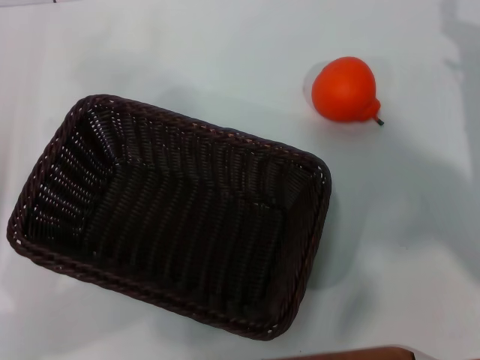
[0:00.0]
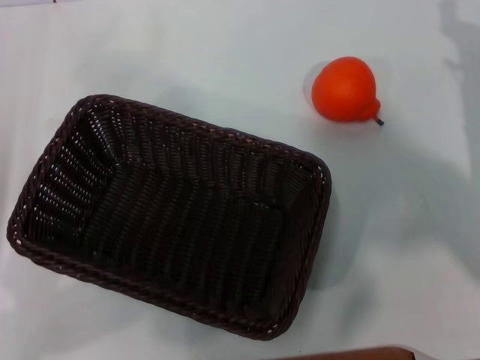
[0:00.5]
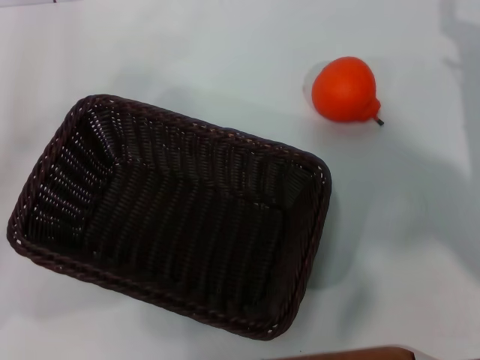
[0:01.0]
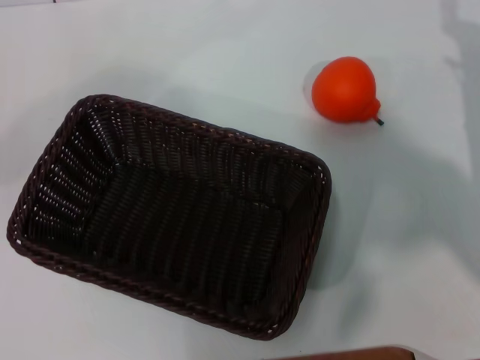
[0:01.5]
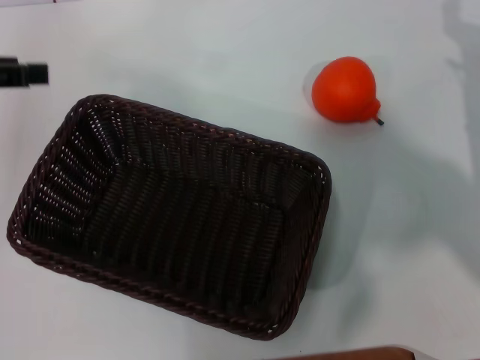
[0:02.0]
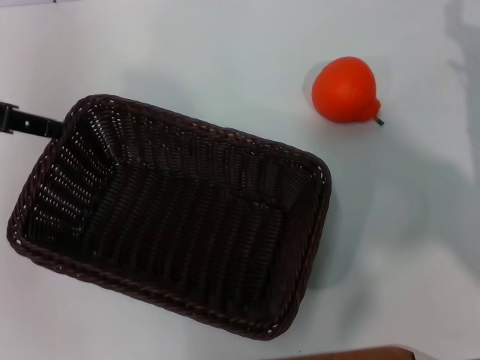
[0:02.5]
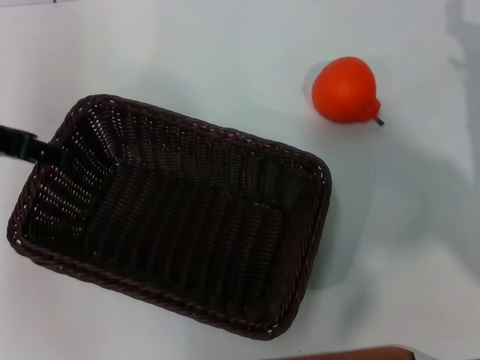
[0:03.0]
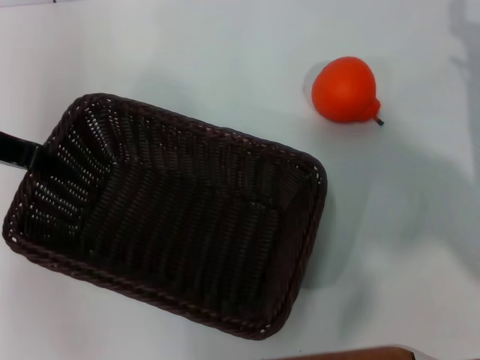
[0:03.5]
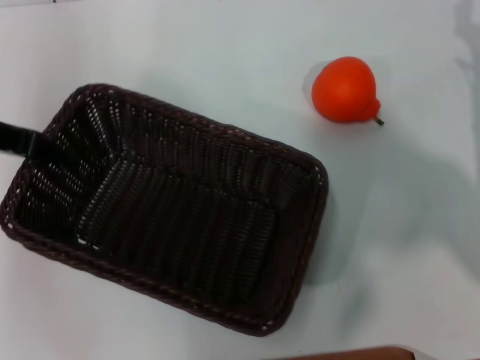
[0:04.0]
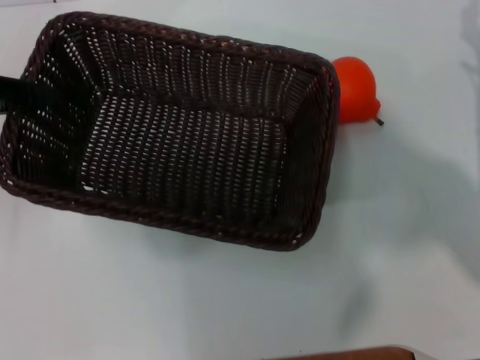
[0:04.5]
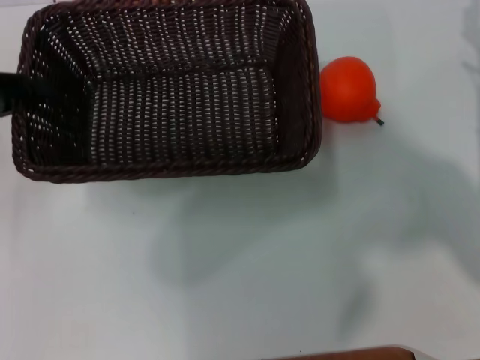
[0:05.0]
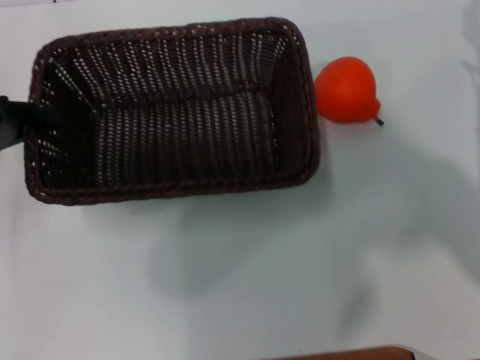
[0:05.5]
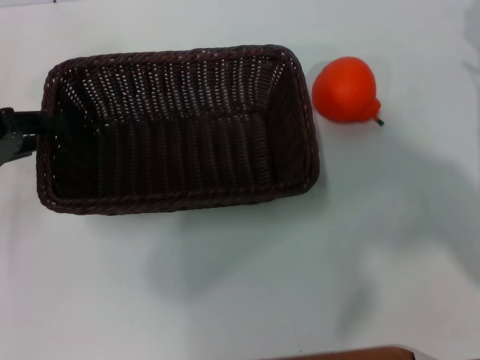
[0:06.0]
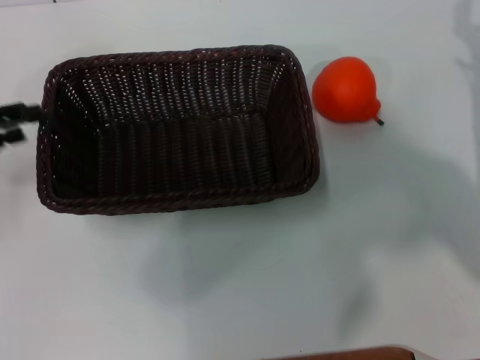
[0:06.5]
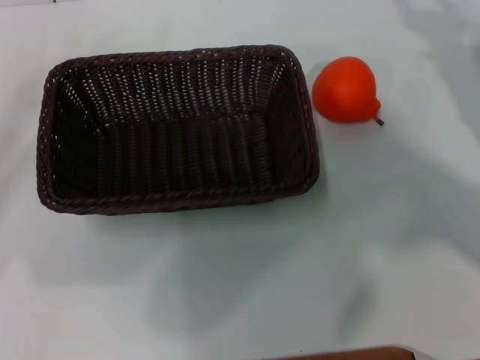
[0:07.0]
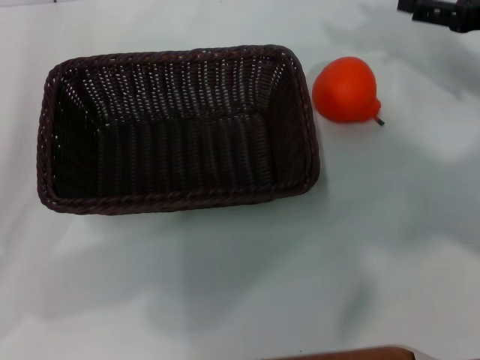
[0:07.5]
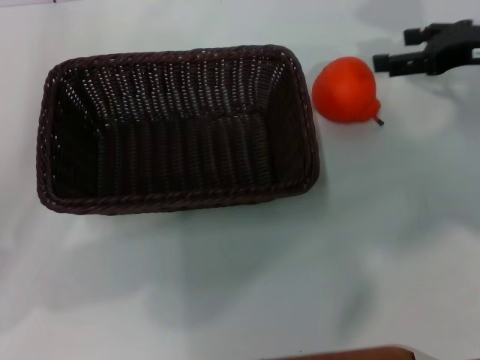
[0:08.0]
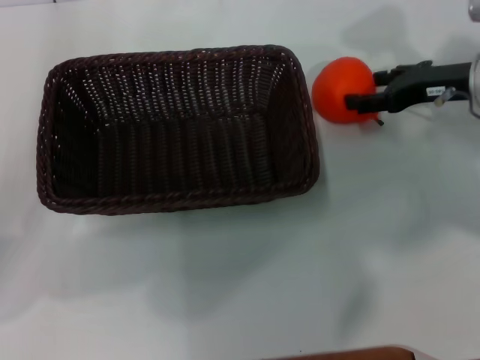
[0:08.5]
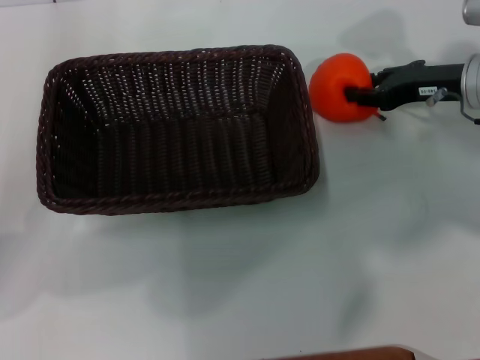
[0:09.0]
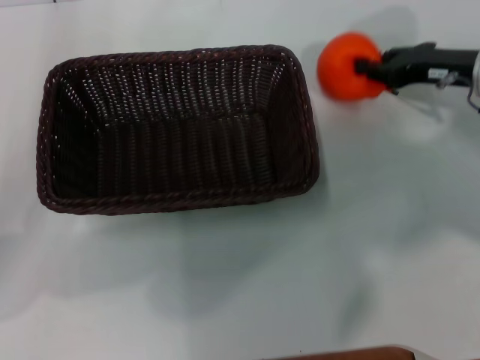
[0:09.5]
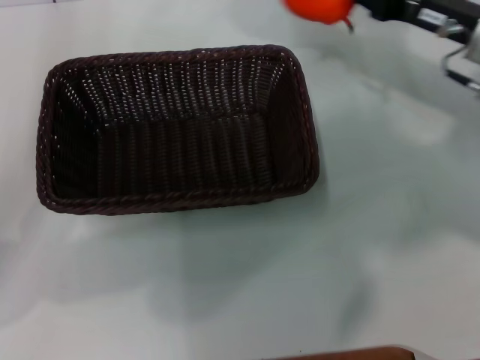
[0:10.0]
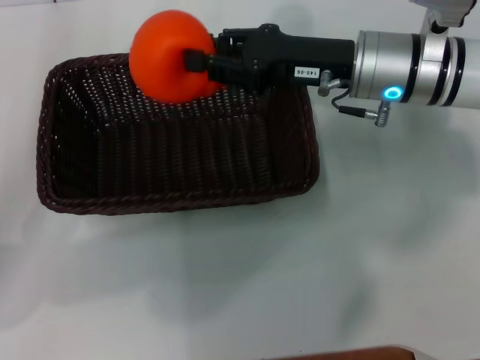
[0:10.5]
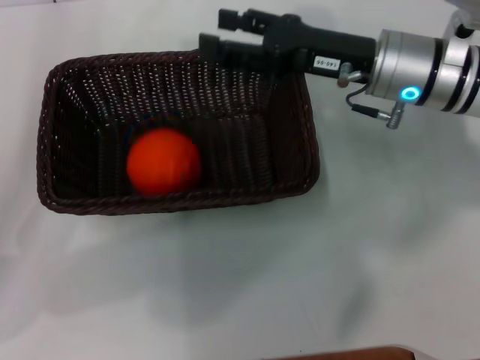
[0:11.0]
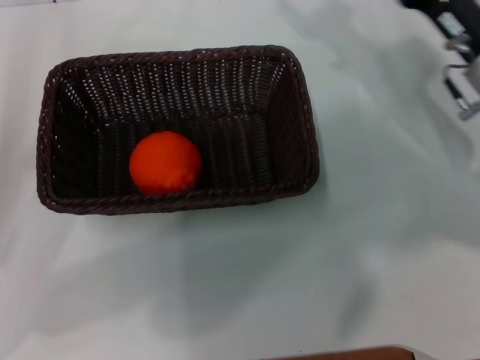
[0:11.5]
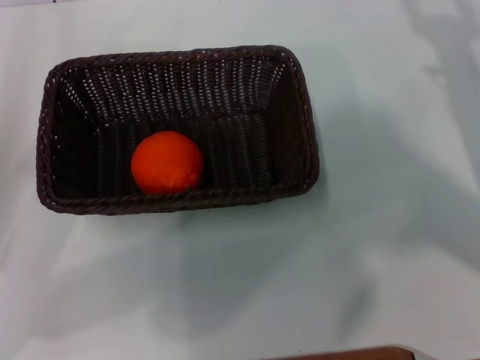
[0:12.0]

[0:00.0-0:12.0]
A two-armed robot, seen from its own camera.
Task of the whole recording: the left gripper pick up the black basket and place it horizontally in the middle of the table, the right gripper pick up the orange and place it into the black basket.
Step, 0:00.0 to 0:04.0: Pick up the dark basket with the left gripper.
Step, 0:04.5 to 0:06.5: Place the dark basket in the center of view with the left gripper.
Step, 0:07.0 to 0:09.0: Pick up the orange with the right gripper.
Step, 0:10.0 to 0:11.0: Place the orange into the dark basket with the right gripper.
0:00.0 to 0:02.0: The left gripper travels upward and forward by approximately 15 cm.
0:02.0 to 0:04.0: The left gripper changes place by about 5 cm, and closes its fingers.
0:04.0 to 0:06.0: The left gripper goes about 10 cm downward and to the left.
0:06.0 to 0:08.0: The right gripper travels upward and forward by approximately 10 cm. Meanwhile the left gripper ends up some 5 cm from where it was, and opens.
0:08.0 to 0:10.0: The right gripper goes approximately 5 cm to the left, and closes.
0:10.0 to 0:12.0: The right gripper shifts roughly 10 cm backward, to the right and downward, and opens its fingers.
